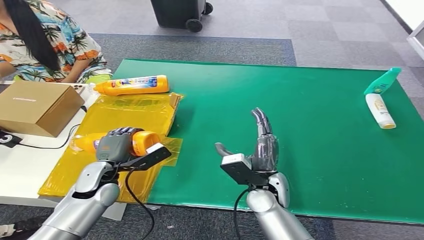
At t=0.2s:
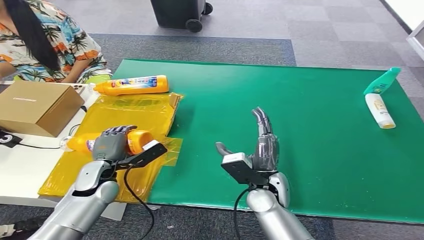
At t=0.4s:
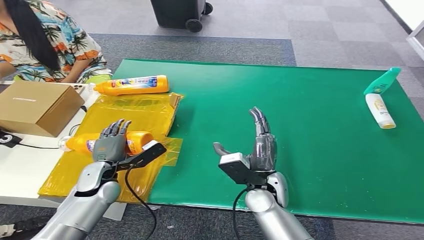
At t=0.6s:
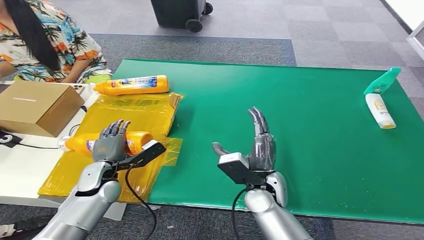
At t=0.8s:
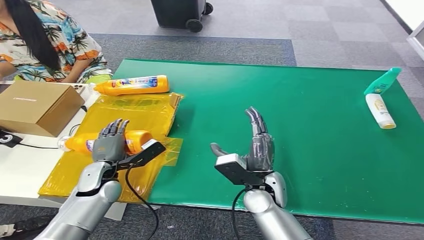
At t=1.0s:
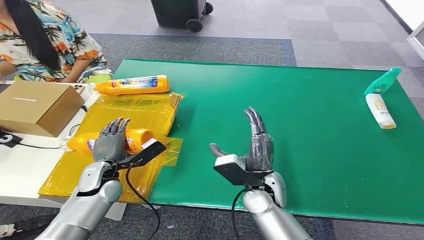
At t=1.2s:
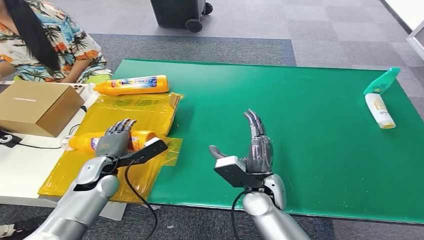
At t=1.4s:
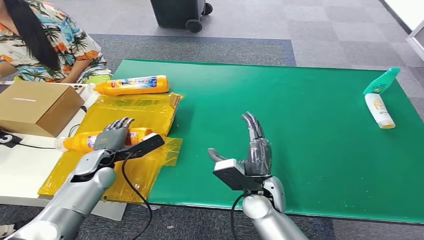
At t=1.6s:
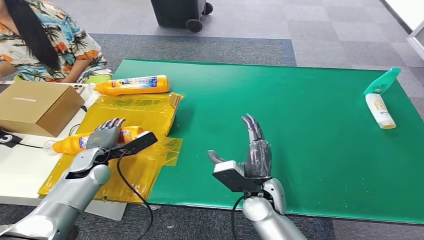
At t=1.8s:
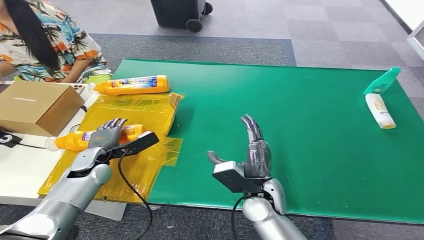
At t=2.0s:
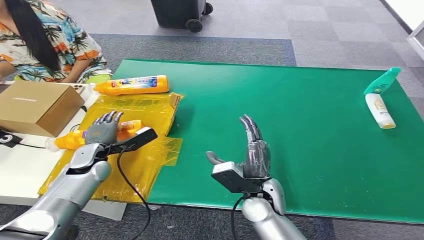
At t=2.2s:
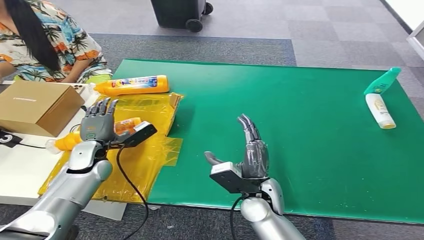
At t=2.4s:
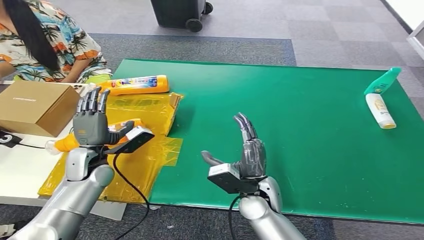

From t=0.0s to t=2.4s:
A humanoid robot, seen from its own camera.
Step, from t=0.0s to t=2.4s: Turn the bottle to the front side.
From t=0.0s to t=1.2s: There are only small adjustments of the hands.
